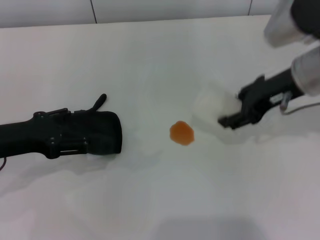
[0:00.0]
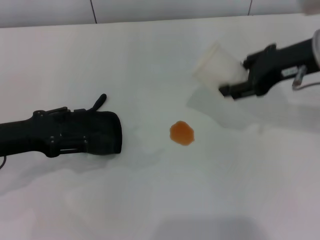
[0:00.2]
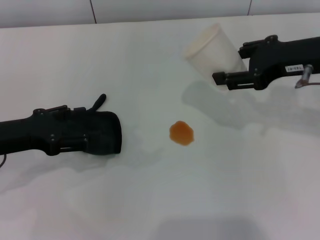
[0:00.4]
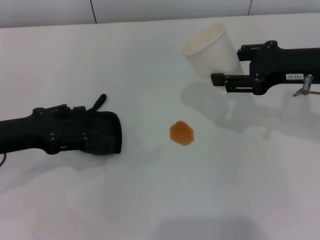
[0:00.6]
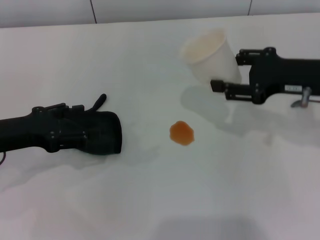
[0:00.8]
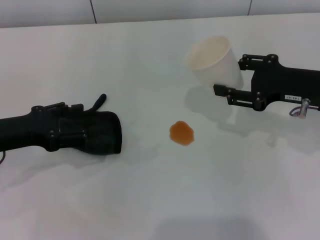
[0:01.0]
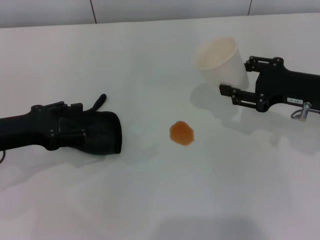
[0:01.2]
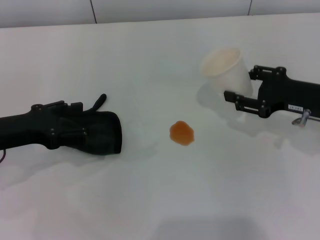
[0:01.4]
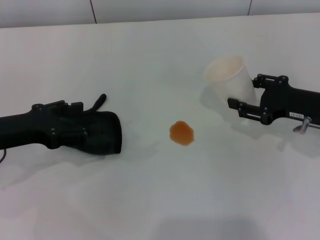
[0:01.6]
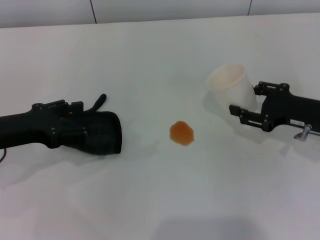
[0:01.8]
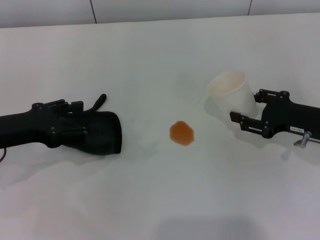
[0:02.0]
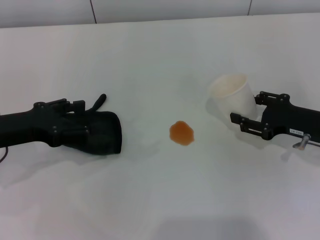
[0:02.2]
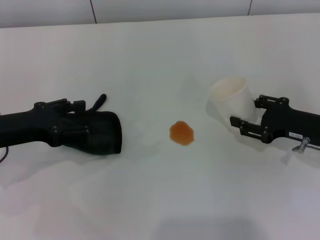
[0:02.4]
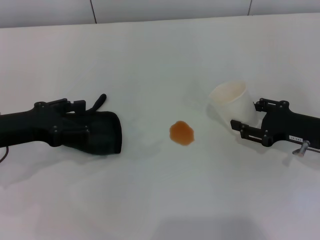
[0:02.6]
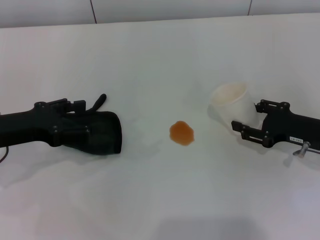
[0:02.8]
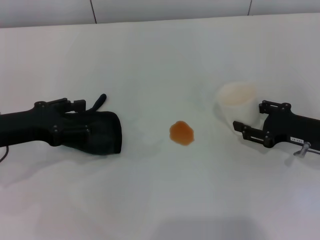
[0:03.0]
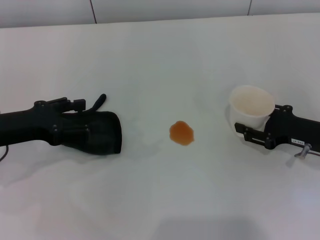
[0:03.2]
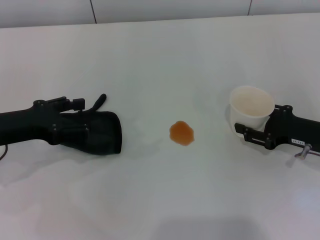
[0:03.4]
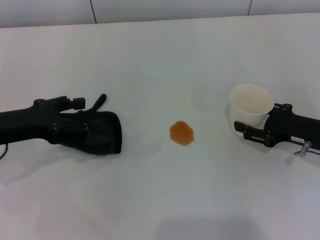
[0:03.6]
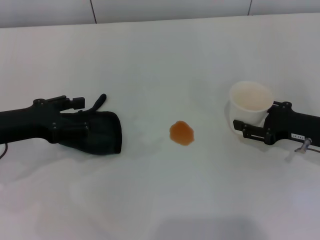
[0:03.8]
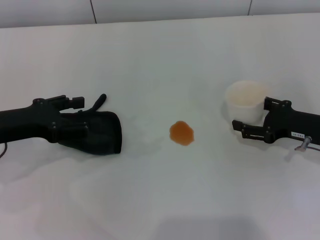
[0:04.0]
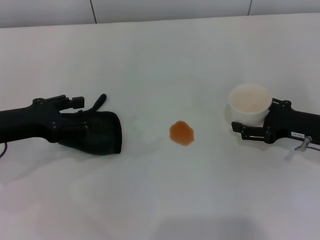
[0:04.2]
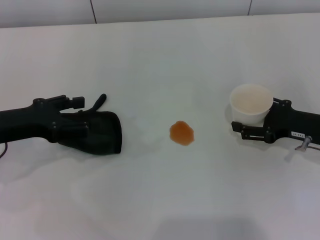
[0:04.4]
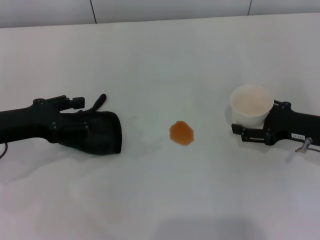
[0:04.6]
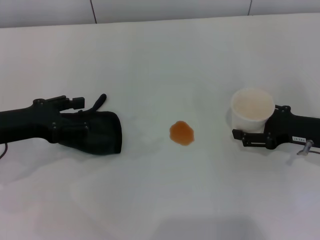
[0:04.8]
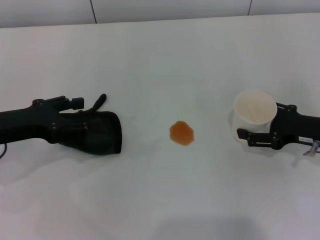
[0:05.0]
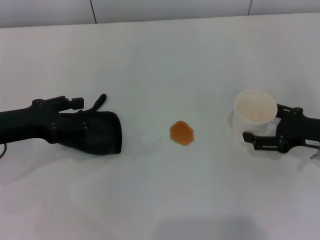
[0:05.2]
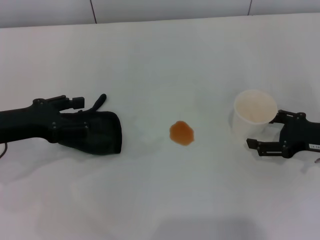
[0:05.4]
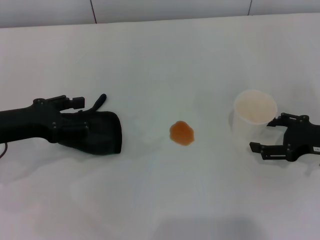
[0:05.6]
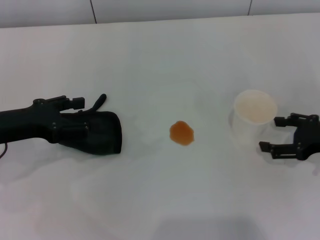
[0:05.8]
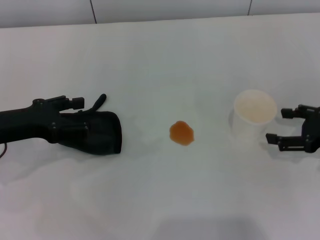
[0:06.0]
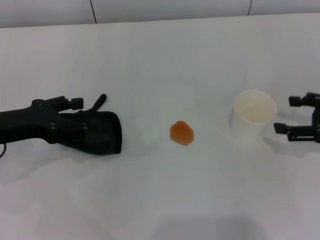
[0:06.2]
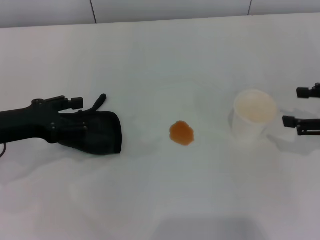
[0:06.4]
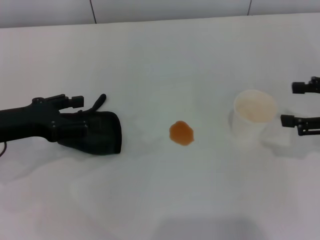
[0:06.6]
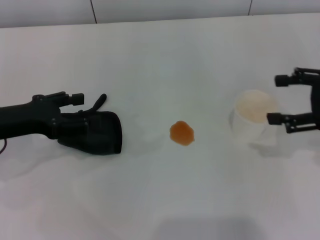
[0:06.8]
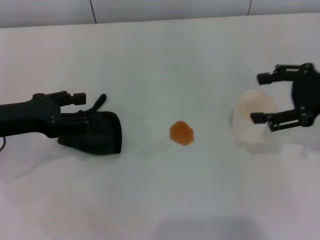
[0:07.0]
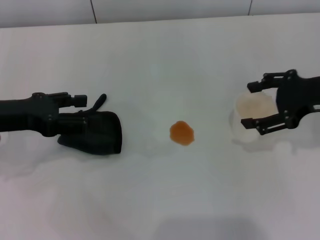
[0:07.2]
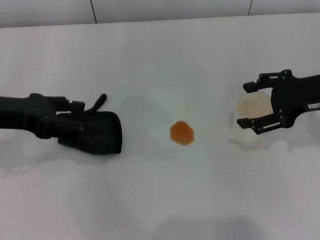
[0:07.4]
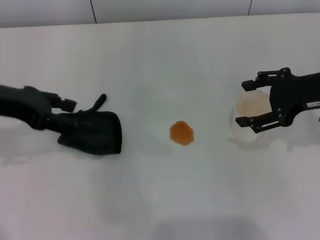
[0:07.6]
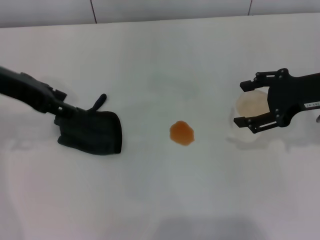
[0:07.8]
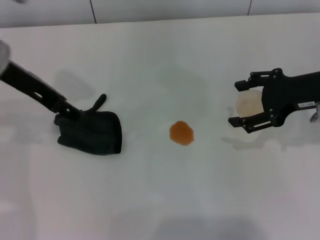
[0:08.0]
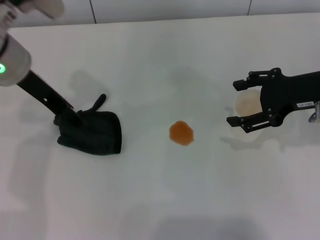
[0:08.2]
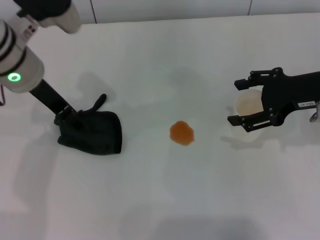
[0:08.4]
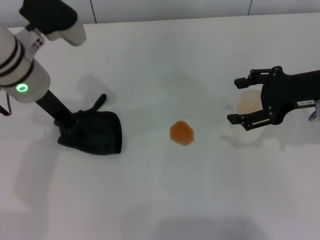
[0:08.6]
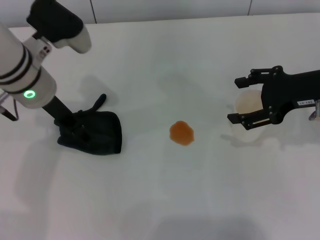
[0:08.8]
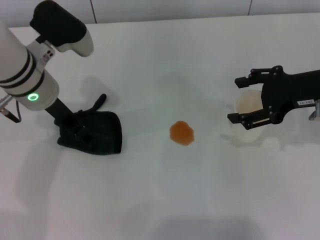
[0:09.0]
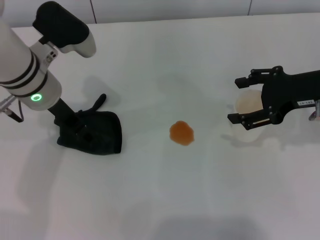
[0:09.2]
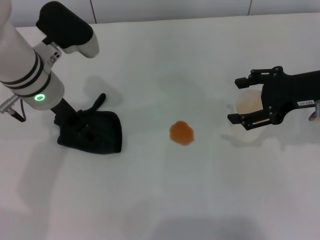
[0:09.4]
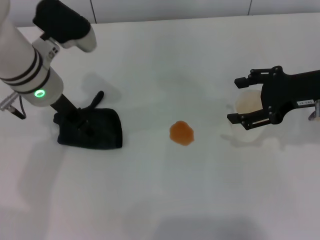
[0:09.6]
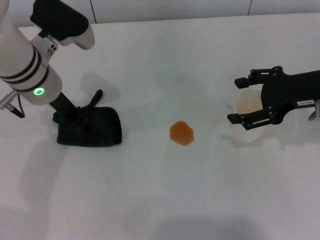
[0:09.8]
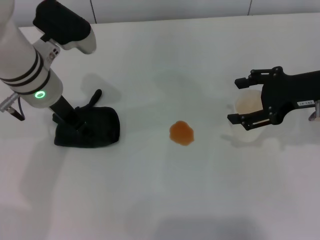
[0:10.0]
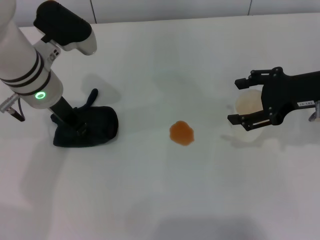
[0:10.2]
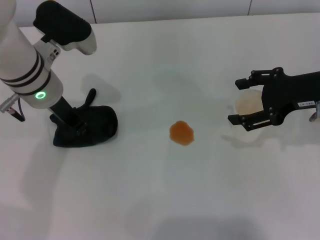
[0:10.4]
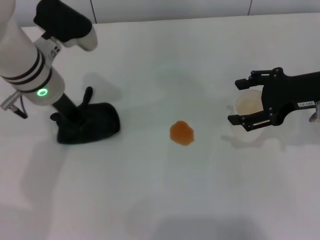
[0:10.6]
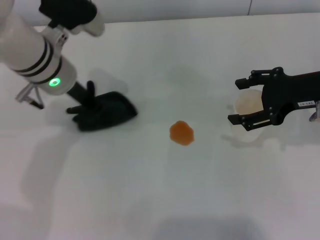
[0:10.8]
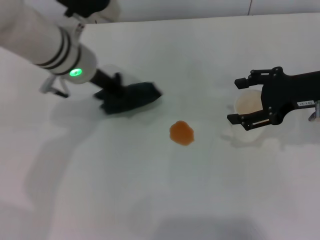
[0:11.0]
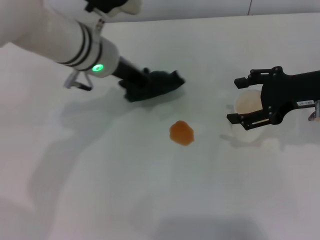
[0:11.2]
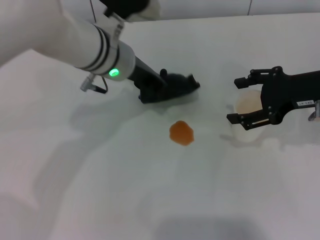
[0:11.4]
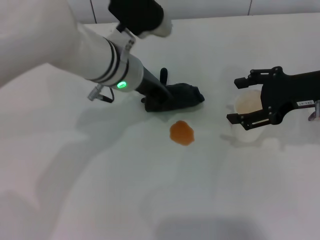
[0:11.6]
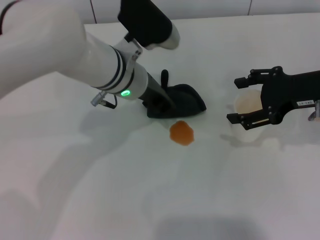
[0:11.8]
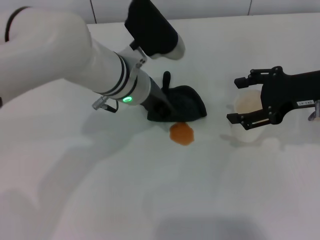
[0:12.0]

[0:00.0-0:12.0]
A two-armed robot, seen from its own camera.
Step, 0:00.0 to 0:05.8: Stand the paper cup upright with the right gripper.
Step, 0:06.0 to 0:10.2: Grasp the rag with the left gripper.
0:00.0 to 0:01.6: The right gripper travels downward and to the right by roughly 15 cm.
0:01.6 to 0:03.0: The grippers move only a little.
0:03.0 to 0:04.4: The right gripper opens.
0:04.4 to 0:06.0: The right gripper moves approximately 5 cm.
0:06.0 to 0:07.6: The left gripper moves upward, approximately 10 cm. The right gripper shifts about 10 cm upward and to the left.
0:07.6 to 0:09.0: The left gripper is displaced to the right and forward by roughly 10 cm.
0:09.0 to 0:10.4: The left gripper closes its fingers.
0:10.4 to 0:12.0: The left gripper heads to the right, covering some 10 cm.

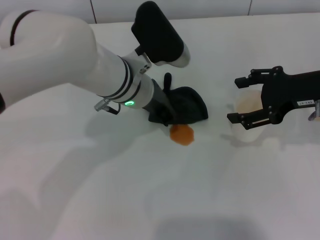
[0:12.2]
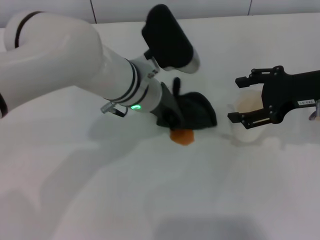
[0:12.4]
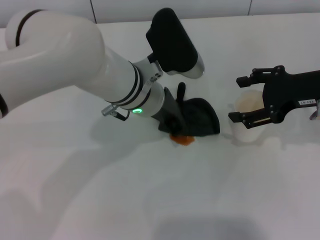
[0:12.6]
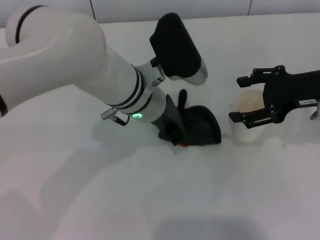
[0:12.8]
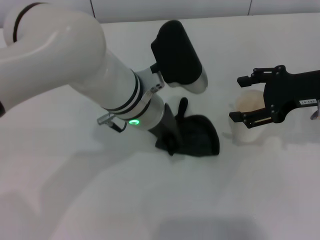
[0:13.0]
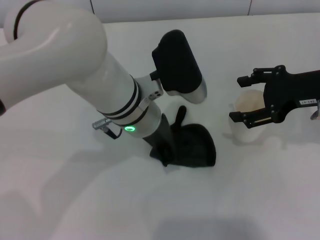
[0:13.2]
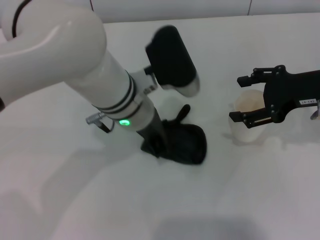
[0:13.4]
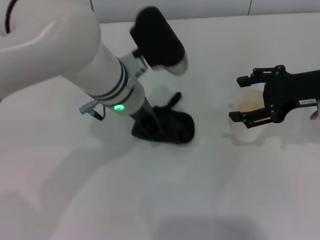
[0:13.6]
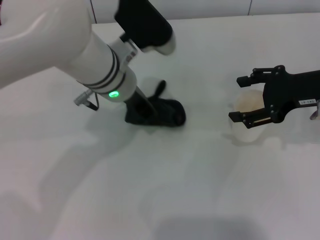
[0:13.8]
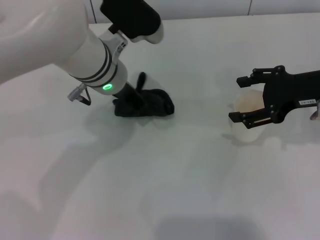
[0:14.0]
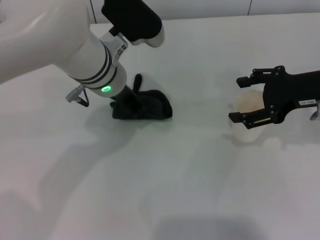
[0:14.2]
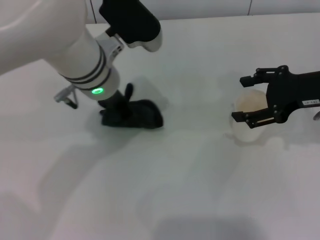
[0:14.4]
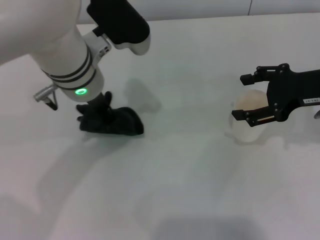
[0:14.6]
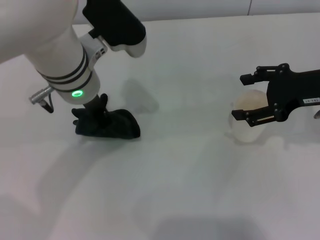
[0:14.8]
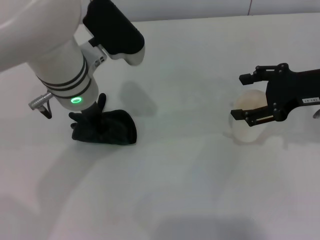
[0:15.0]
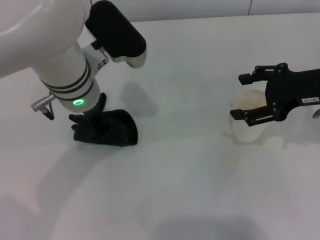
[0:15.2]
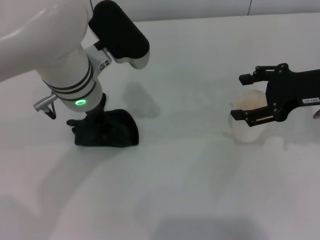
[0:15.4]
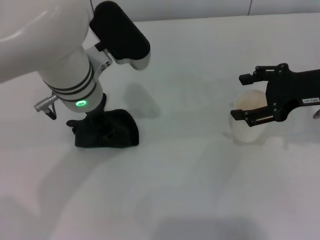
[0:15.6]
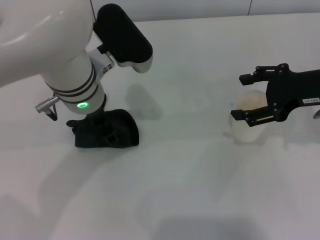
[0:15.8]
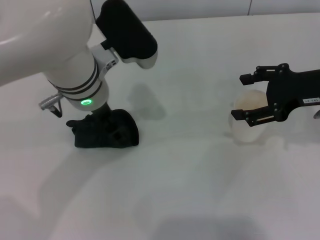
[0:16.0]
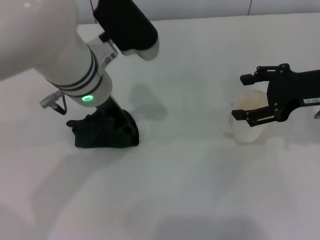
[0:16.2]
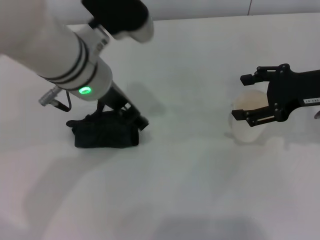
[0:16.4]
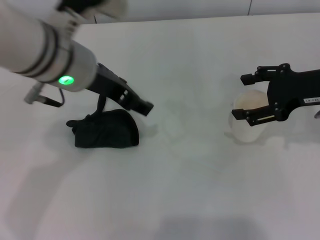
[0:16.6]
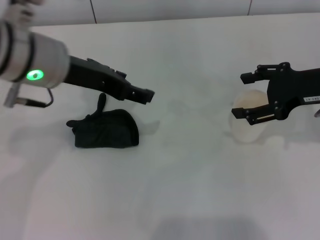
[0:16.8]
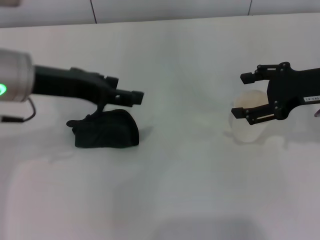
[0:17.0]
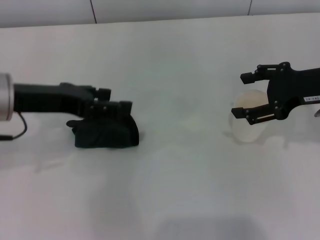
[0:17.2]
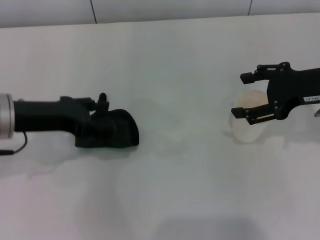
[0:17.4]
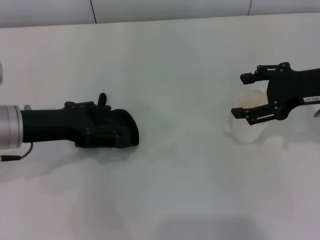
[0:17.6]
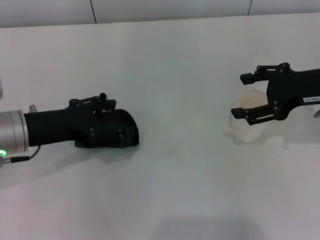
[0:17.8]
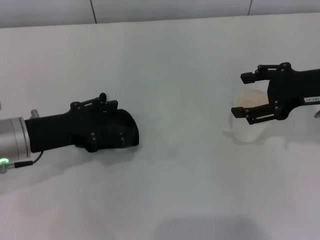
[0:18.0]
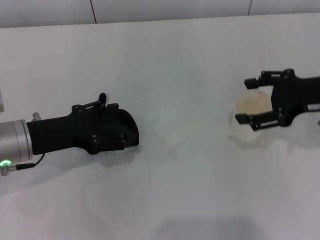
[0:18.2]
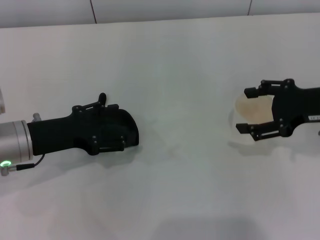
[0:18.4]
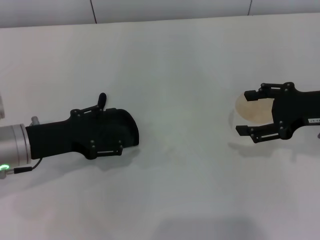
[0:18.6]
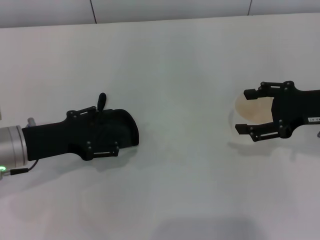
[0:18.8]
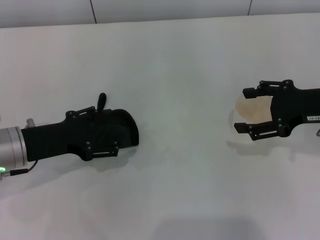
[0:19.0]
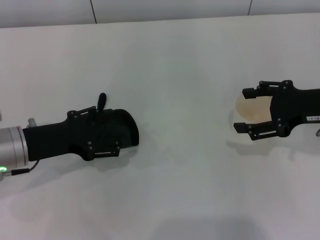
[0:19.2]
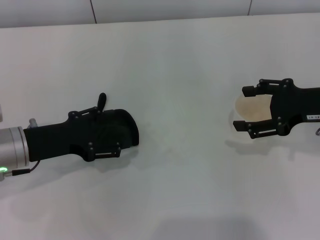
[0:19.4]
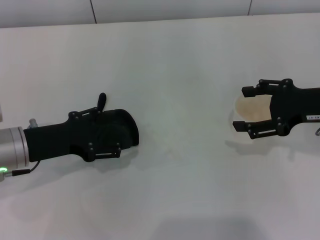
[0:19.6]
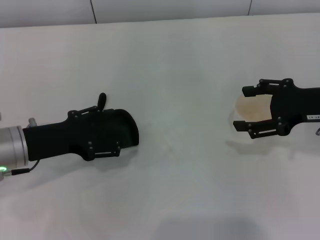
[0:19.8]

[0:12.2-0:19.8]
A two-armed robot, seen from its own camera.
Step, 0:12.2 to 0:15.2: Wipe the stains off the table with the left gripper.
Step, 0:15.4 to 0:16.8: Place the rag on the table with the left gripper.
0:12.2 to 0:13.8: The grippers stay close to where they were, moving slightly.
0:13.8 to 0:15.2: The grippers stay close to where they were, moving slightly.
0:15.2 to 0:16.8: The left gripper travels upward and to the left by approximately 10 cm, and opens.
0:16.8 to 0:18.2: The left gripper goes some 15 cm downward and to the left.
0:18.2 to 0:19.8: The grippers move only a little.
